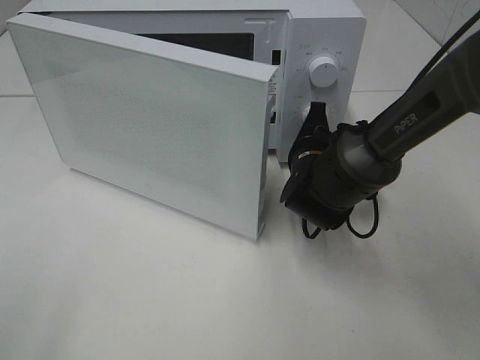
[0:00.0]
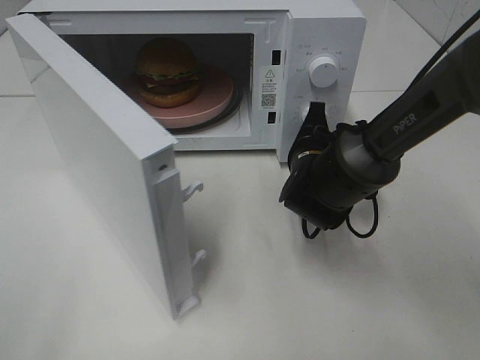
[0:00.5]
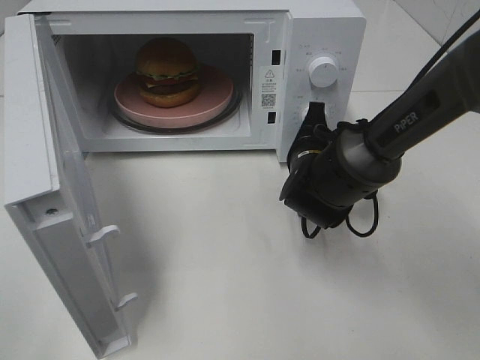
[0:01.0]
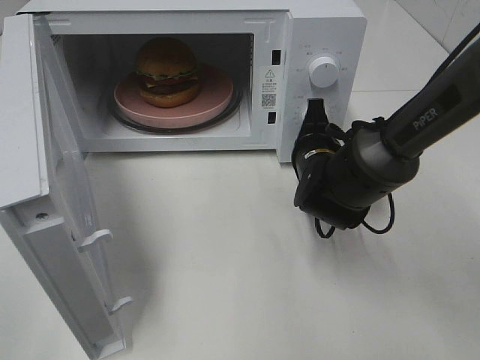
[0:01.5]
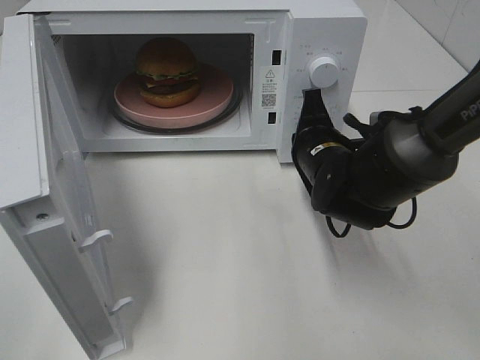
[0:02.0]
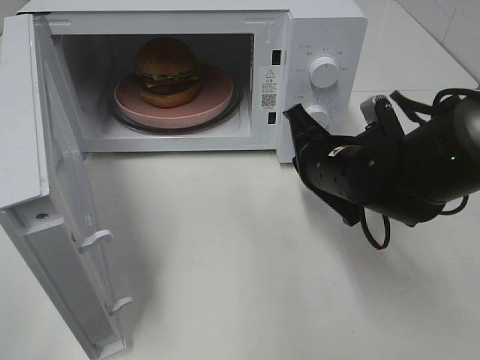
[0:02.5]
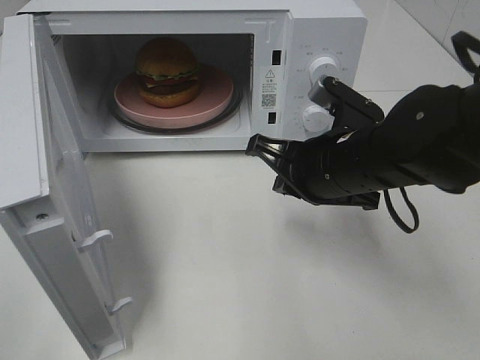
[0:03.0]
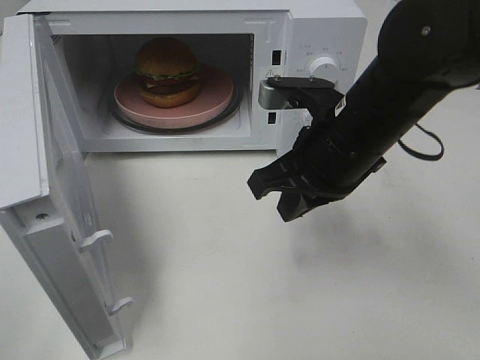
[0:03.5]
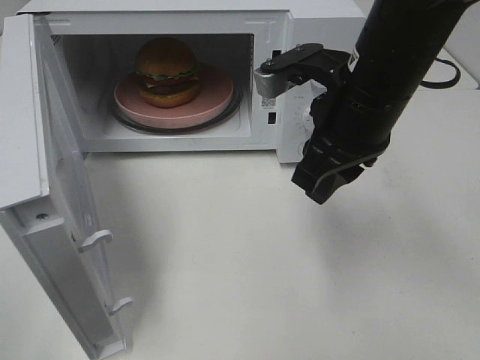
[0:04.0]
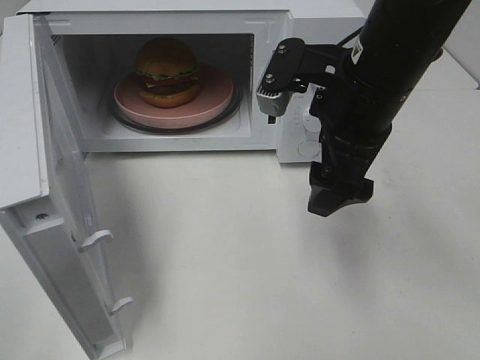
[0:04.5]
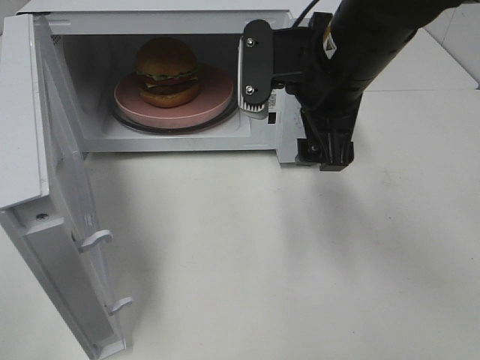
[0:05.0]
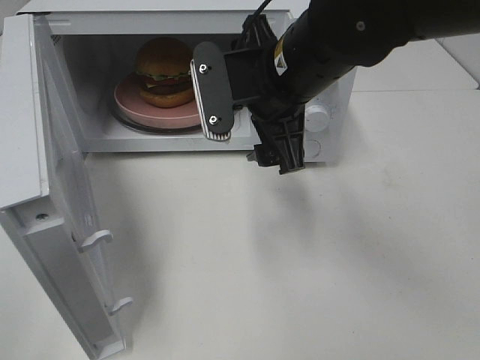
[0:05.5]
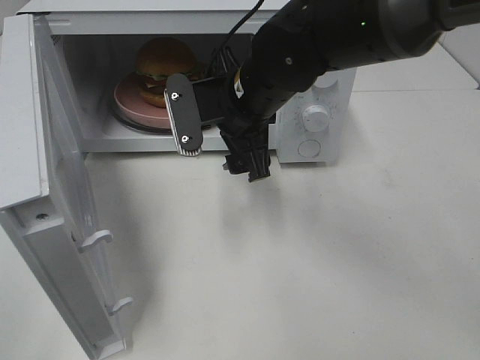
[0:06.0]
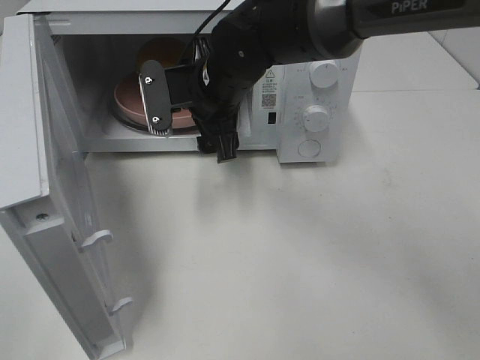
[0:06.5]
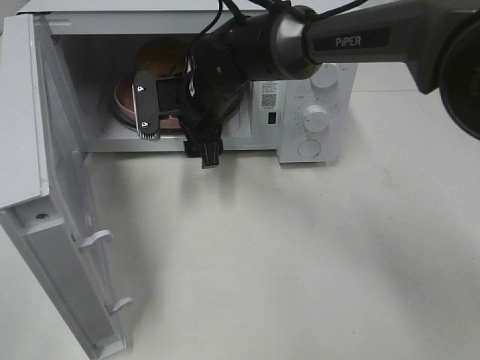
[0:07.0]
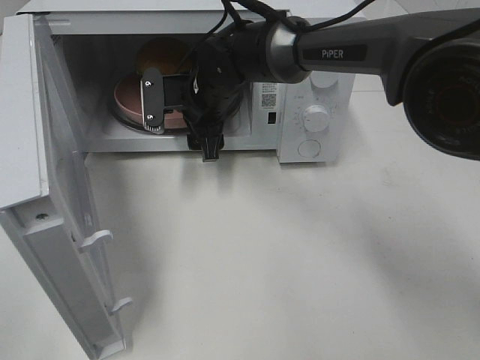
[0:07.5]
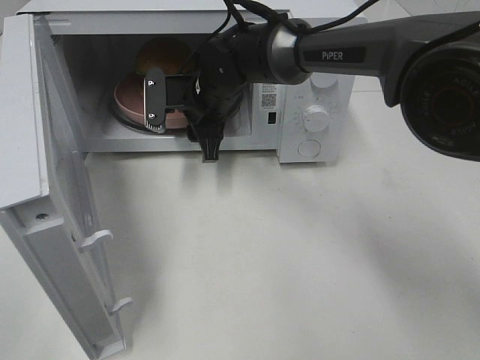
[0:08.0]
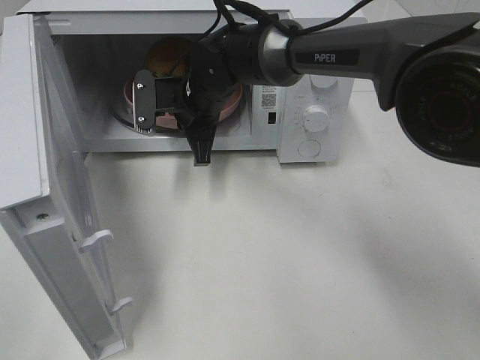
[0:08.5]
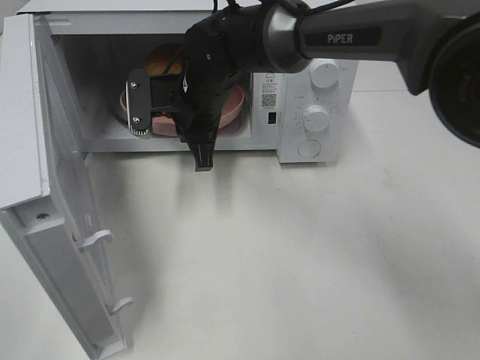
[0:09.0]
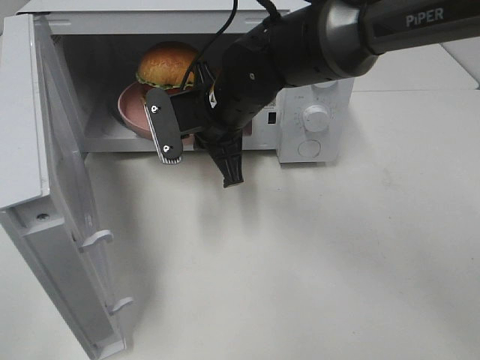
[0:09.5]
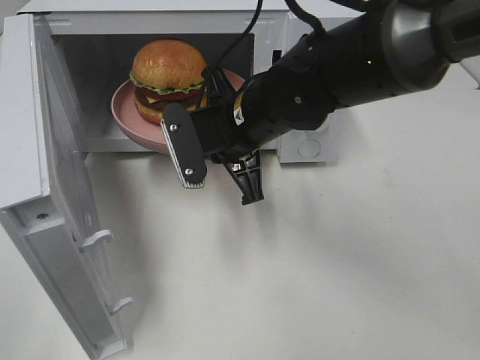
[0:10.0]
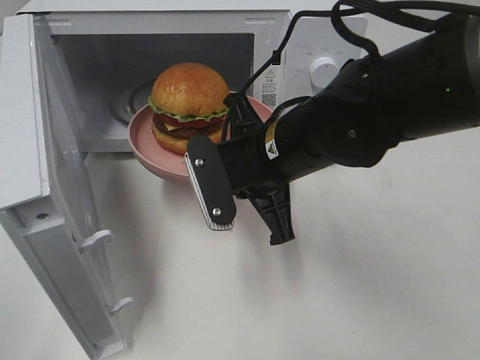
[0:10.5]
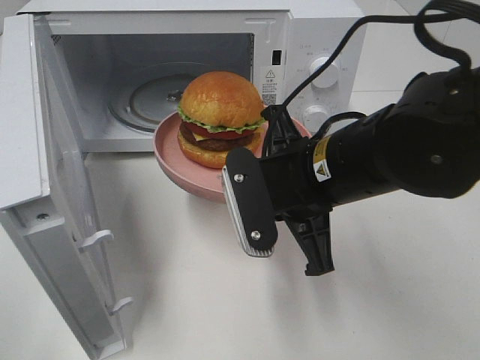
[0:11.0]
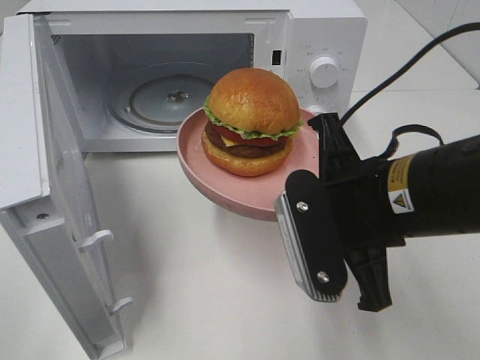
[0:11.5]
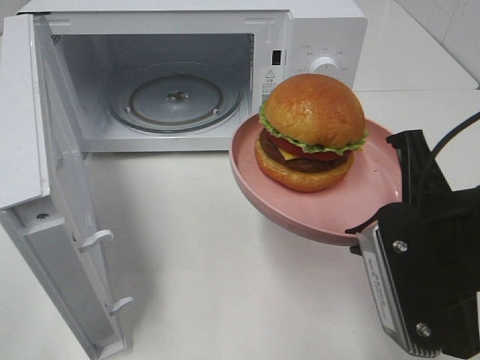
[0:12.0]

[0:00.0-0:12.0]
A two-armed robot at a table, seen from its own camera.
Task of the whole recording: Heat the burger.
Step, 0:02.0 to 0:08.0: Right hand: grab the plate with the hamburger.
0:02.0 to 0:04.0: The right gripper is displaced upward by about 15 cm, and opens up.
0:04.0 to 0:06.0: The right gripper is displaced to the left and forward by about 10 cm, and opens up.
0:06.0 to 0:08.0: The right gripper moves forward and downward, some 10 cm, and closes its fingers.
0:08.0 to 0:10.0: The right gripper is displaced backward by approximately 10 cm, and closes.
0:10.0 to 0:12.0: The right gripper shifts about 25 cm backward and to the right.

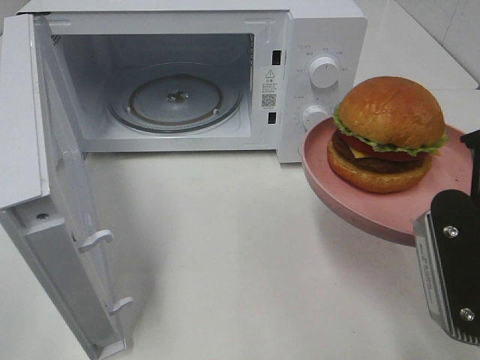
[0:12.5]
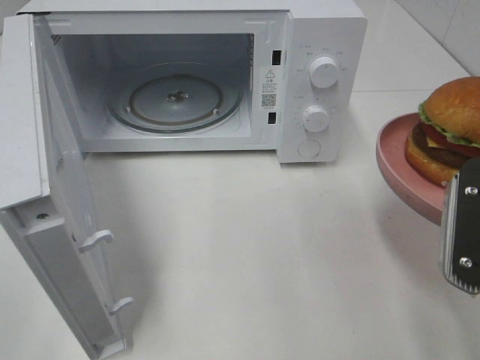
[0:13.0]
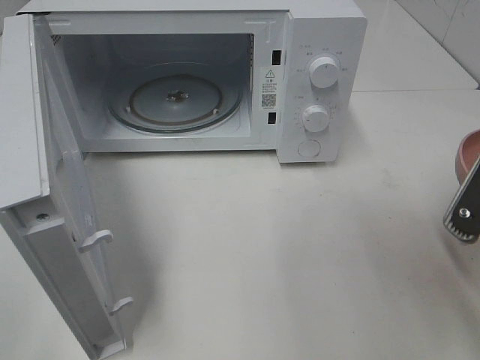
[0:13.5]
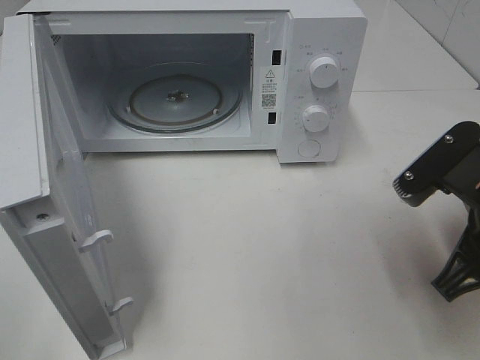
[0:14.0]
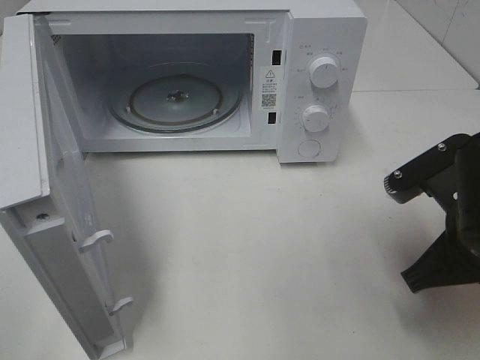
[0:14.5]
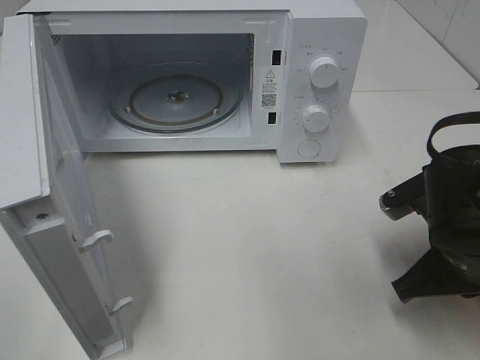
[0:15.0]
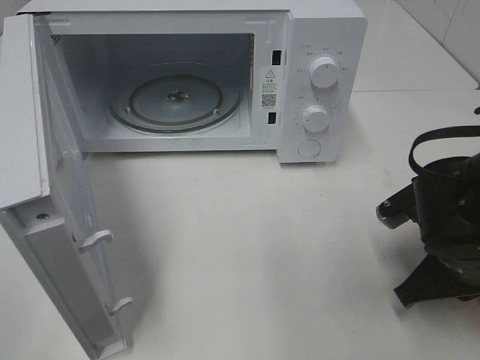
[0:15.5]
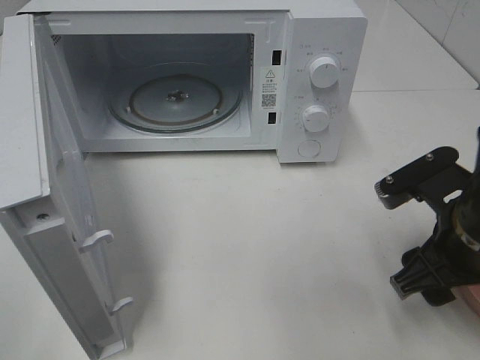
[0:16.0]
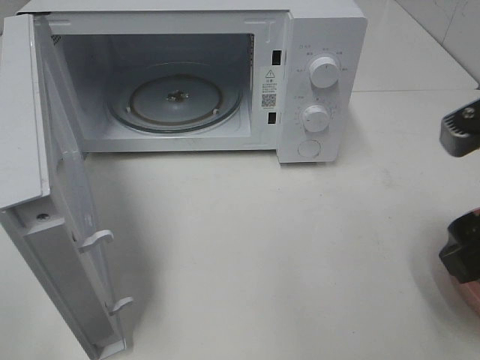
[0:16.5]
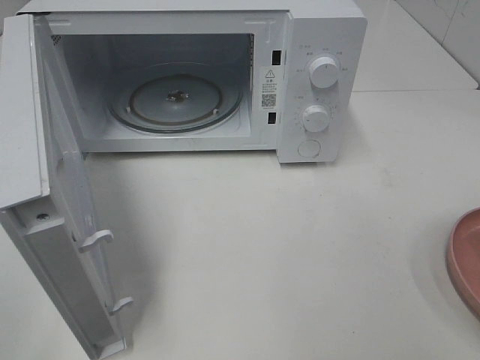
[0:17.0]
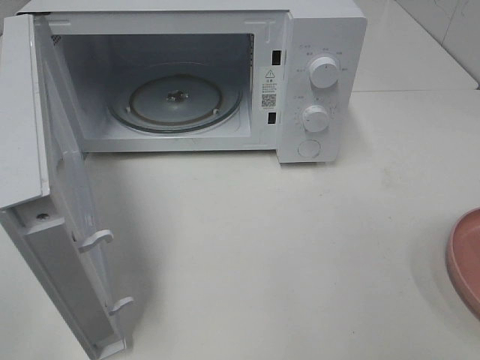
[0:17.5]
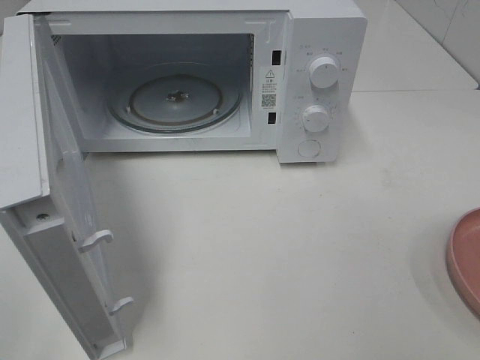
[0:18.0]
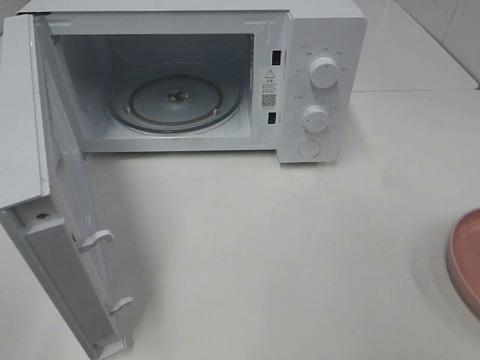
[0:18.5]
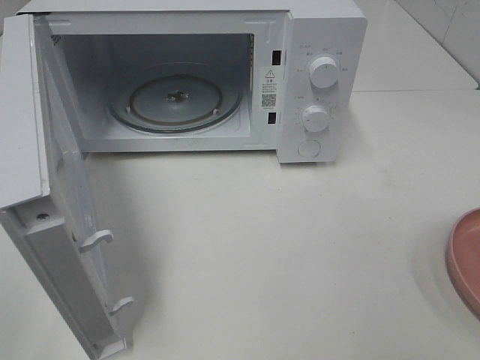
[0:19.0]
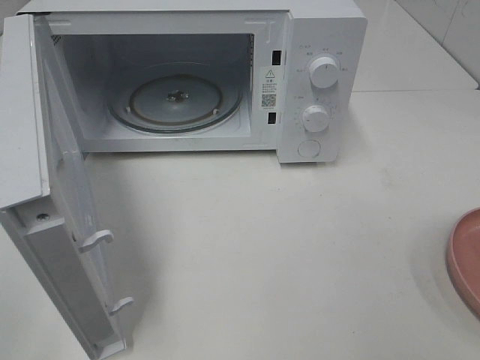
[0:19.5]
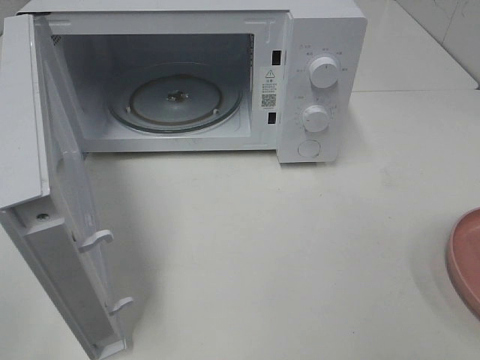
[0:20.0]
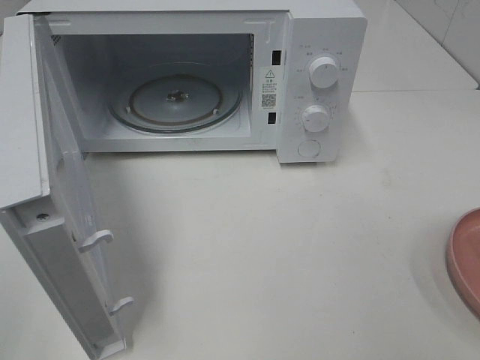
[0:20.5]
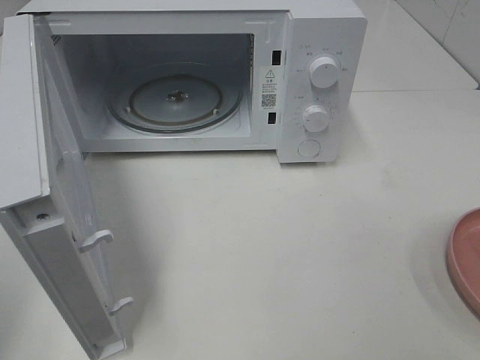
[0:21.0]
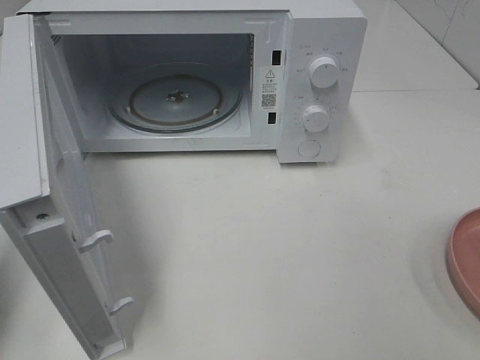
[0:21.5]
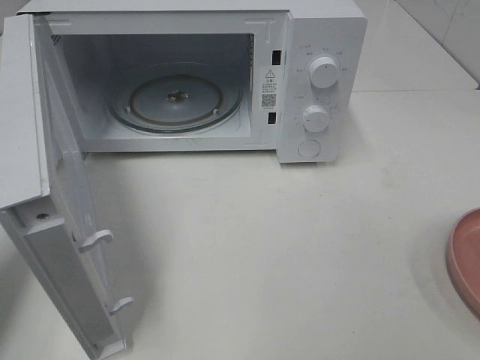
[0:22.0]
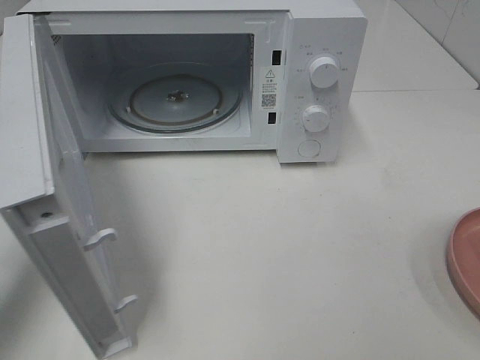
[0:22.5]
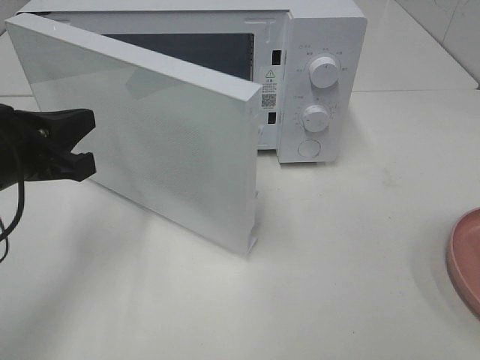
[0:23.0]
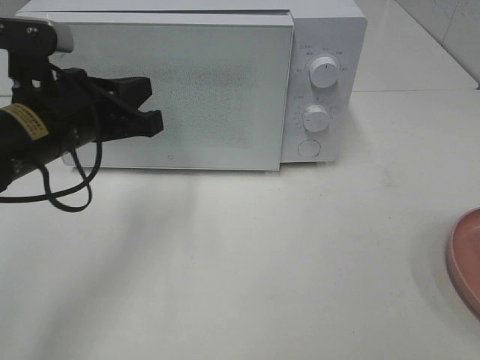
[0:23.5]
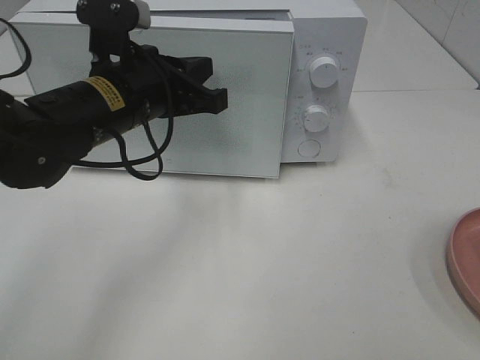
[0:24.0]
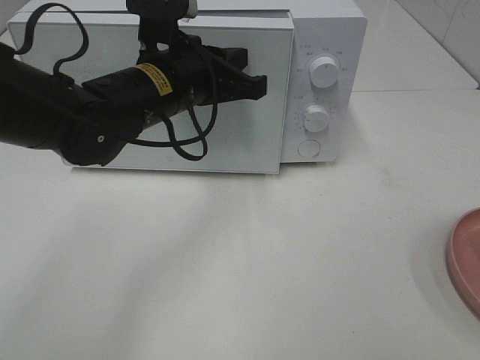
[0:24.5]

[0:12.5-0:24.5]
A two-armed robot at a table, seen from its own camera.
Task of the whole recording: Heat the burger.
Step, 0:12.5 to 0:15.5: Right hand: place the plate on the table.
0:12.5 to 0:14.5: The right gripper is displaced downward and forward by approximately 10 cm.
0:14.5 to 0:16.5: The right gripper moves upward, about 10 cm, and opens up.
0:16.5 to 0:18.5: The right gripper moves backward and to the right, some 15 cm.
0:20.5 to 0:22.5: The left gripper travels forward and downward by about 25 cm, and closes.
0:22.5 to 0:24.5: The left gripper shifts approximately 25 cm to the right and forward.

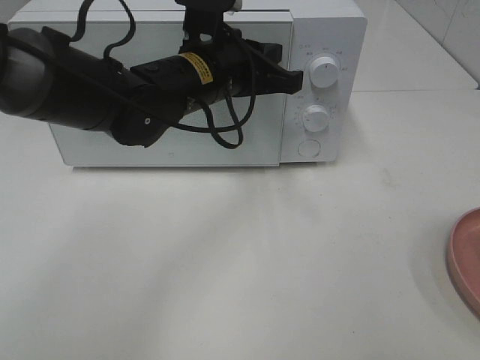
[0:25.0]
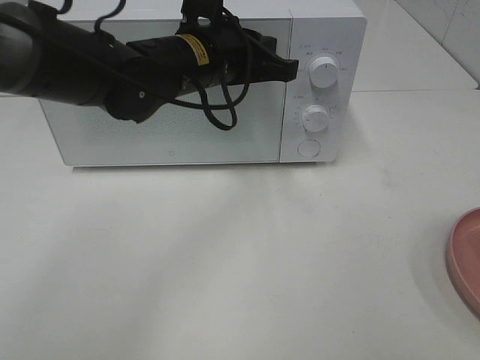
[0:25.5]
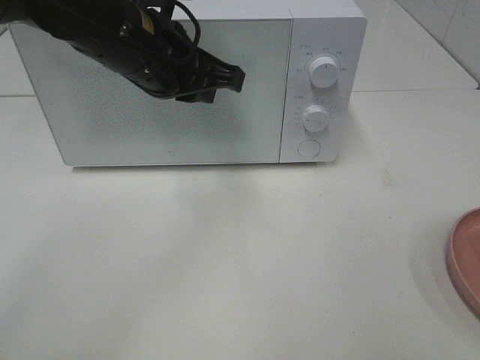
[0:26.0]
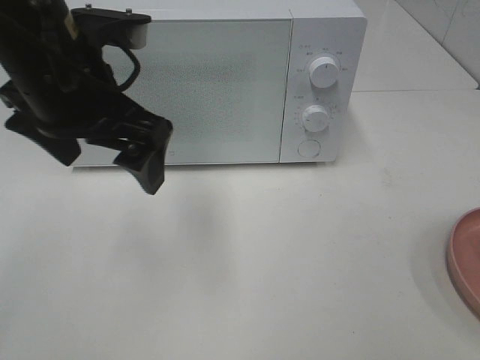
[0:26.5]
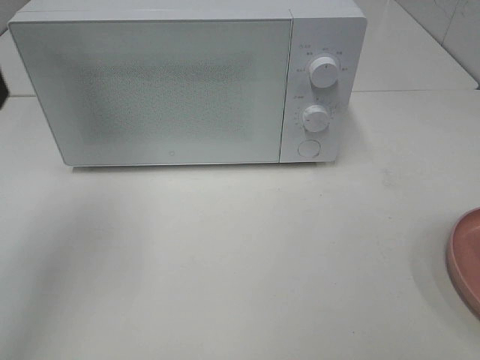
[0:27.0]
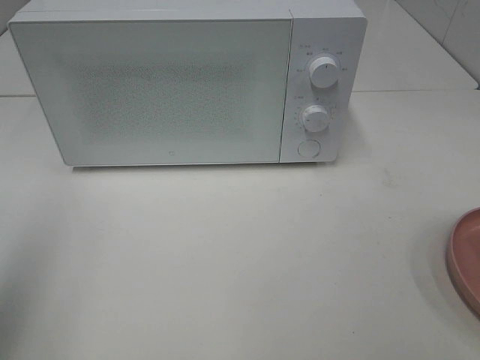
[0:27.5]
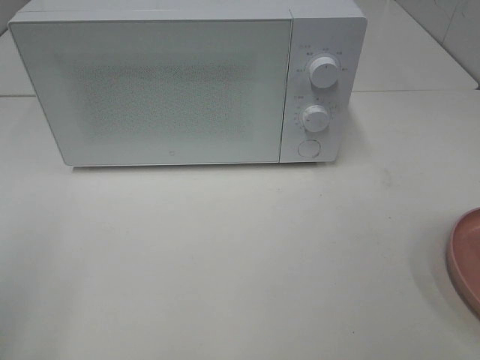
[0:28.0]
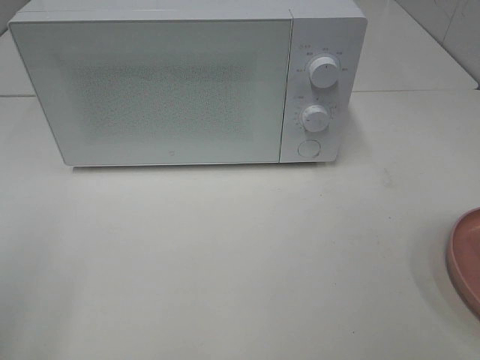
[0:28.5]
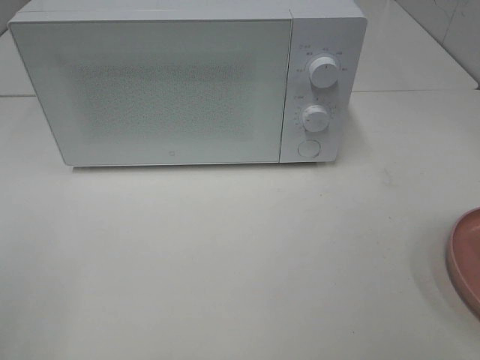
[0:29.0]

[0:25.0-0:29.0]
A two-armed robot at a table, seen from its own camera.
Task of the whole recording: Heat the burger.
0:25.0 to 0:27.0: The left gripper is displaced to the left, upward and backward by approximately 30 cm, and opens.
0:27.0 to 0:29.0: The left gripper is displaced backward by approximately 20 cm.
